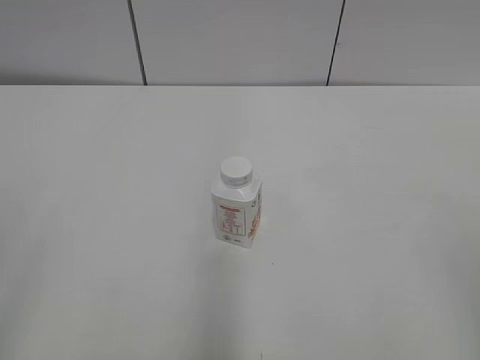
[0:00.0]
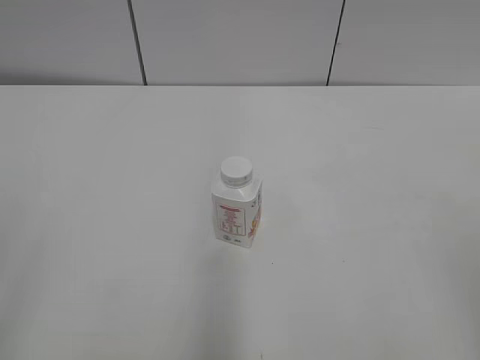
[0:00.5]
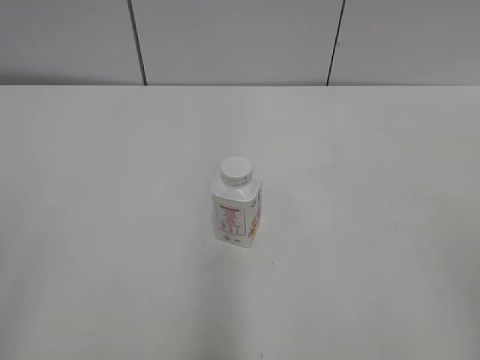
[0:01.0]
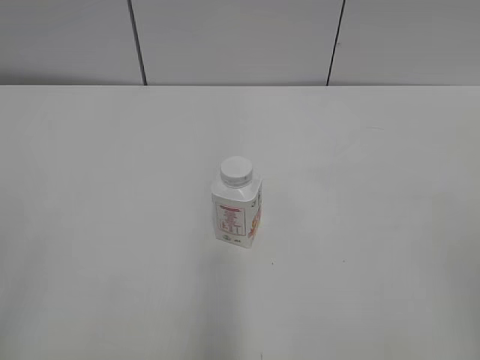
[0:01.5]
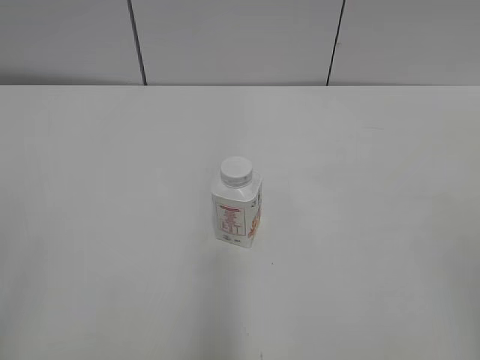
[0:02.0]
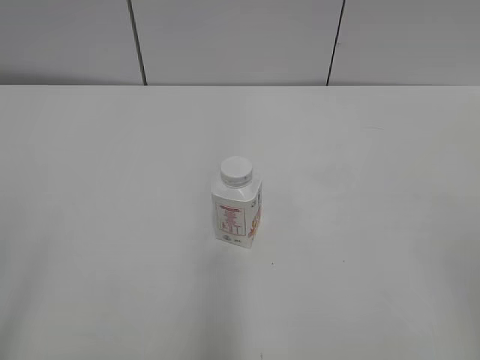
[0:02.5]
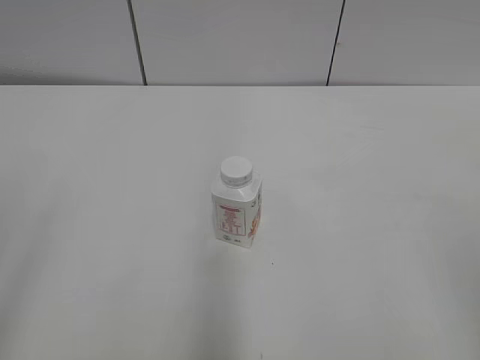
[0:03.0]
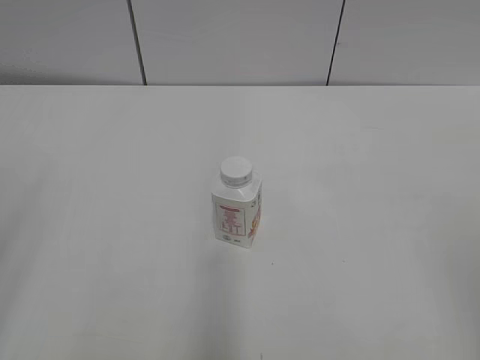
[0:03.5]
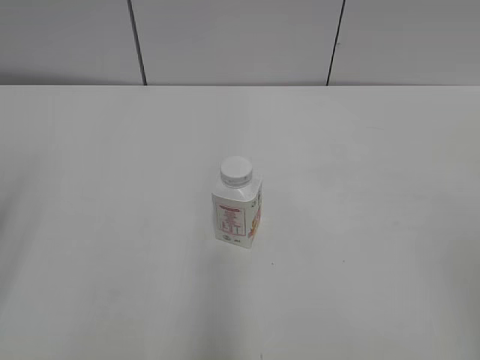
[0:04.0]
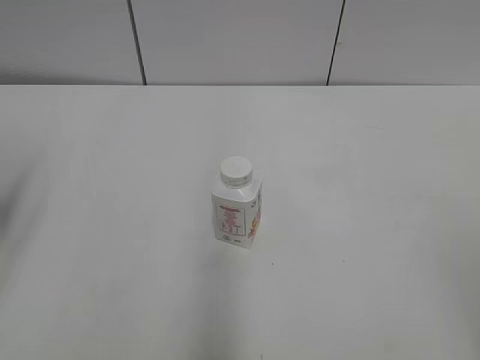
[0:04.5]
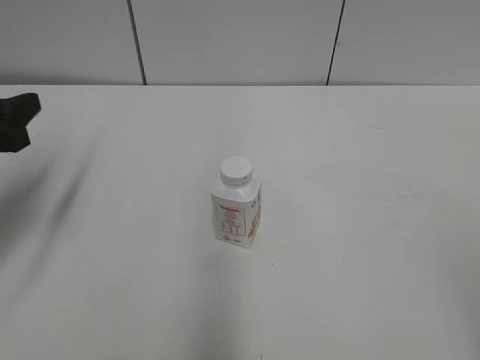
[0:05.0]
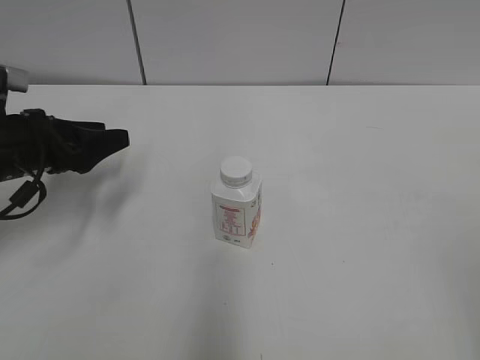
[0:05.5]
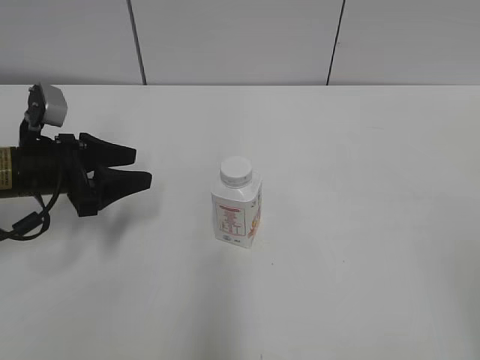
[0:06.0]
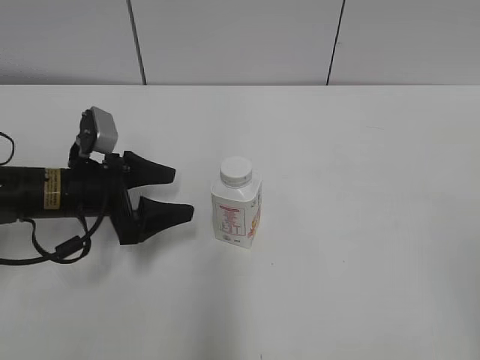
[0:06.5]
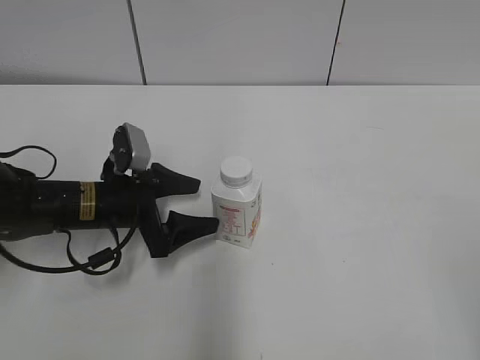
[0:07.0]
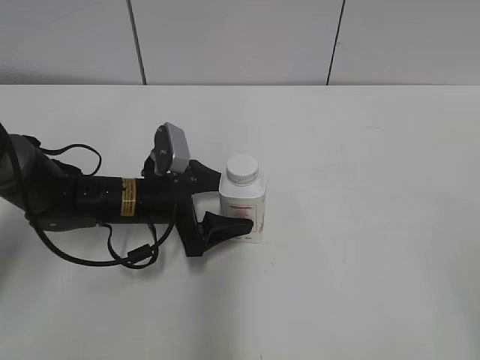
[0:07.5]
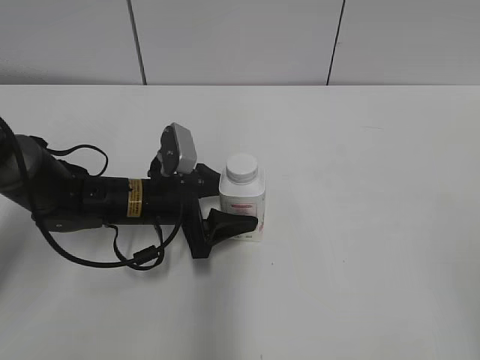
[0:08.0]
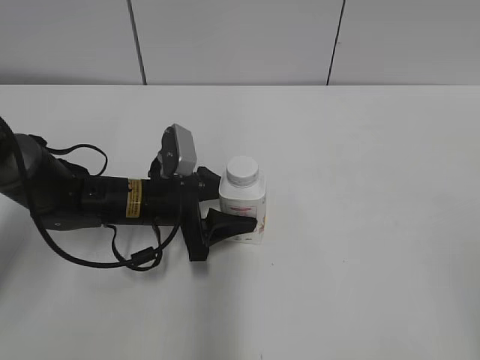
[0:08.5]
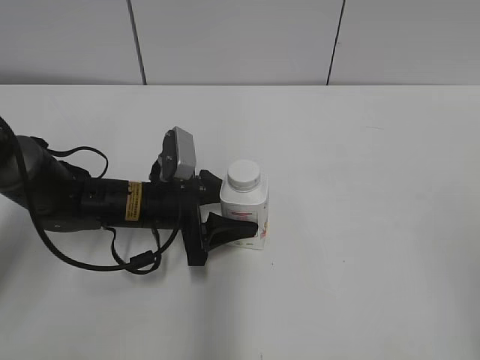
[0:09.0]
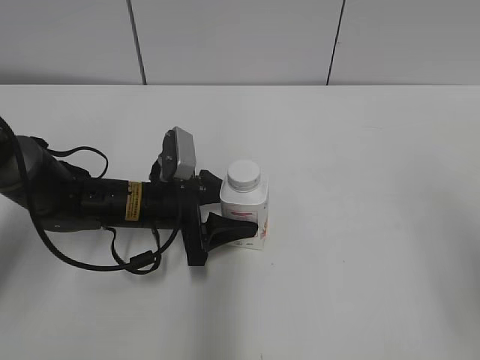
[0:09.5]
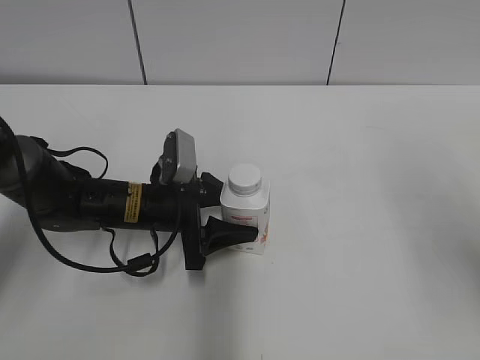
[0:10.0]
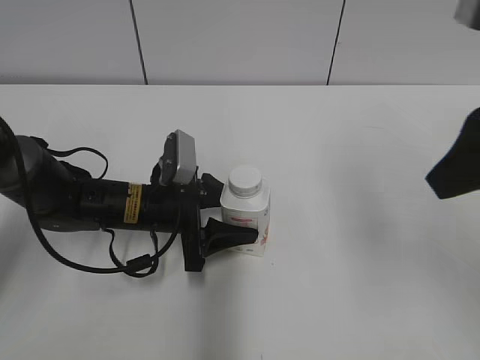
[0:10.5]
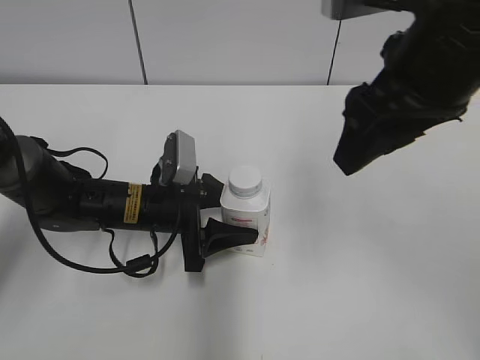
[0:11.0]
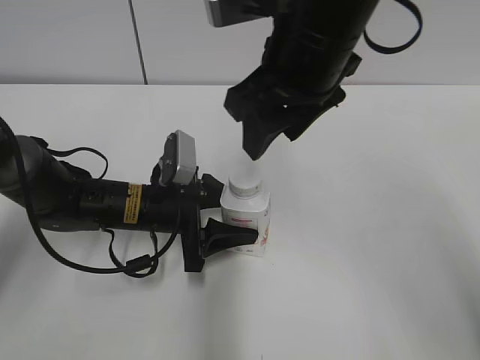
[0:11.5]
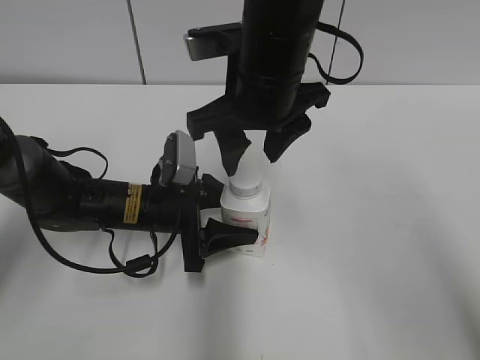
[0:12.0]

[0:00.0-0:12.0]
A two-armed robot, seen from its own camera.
Step, 0:00.0 to 0:08.5: Grasp the bottle and move it to the center of the table with the left gripper.
0:04.0 to 0:06.0: The left gripper is displaced forward and downward by about 25 cm.
0:06.0 to 0:08.0: The left gripper heads to the right and downward, covering approximately 15 cm.
0:08.0 to 0:10.0: The right gripper shifts approximately 15 cm forward.
0:10.0 to 0:12.0: The right gripper is displaced to the left and forward by about 30 cm.

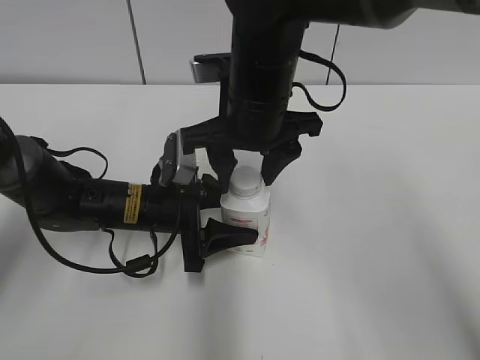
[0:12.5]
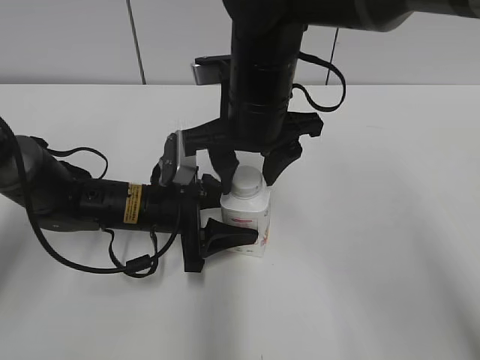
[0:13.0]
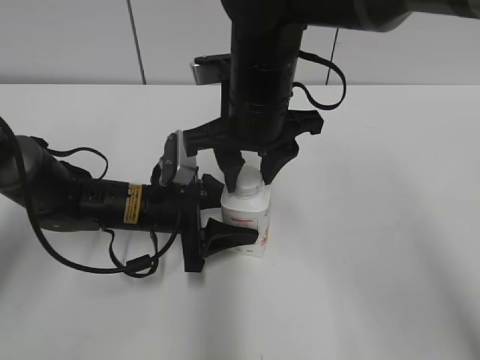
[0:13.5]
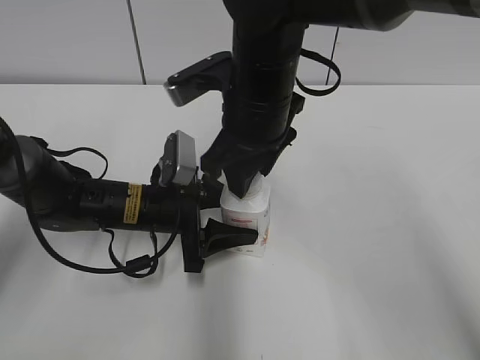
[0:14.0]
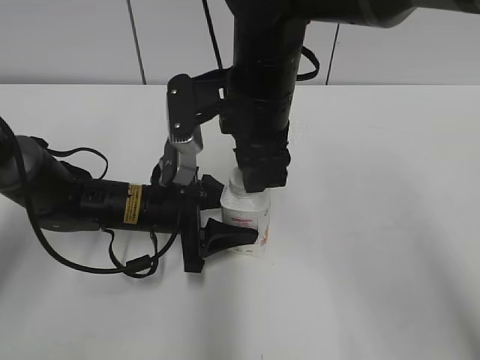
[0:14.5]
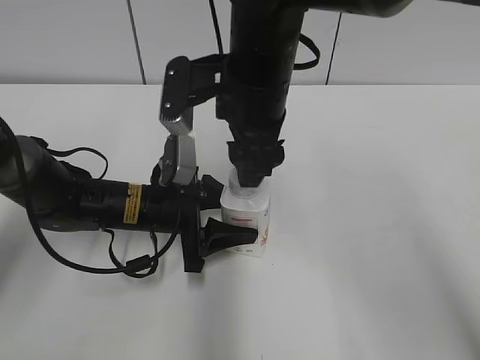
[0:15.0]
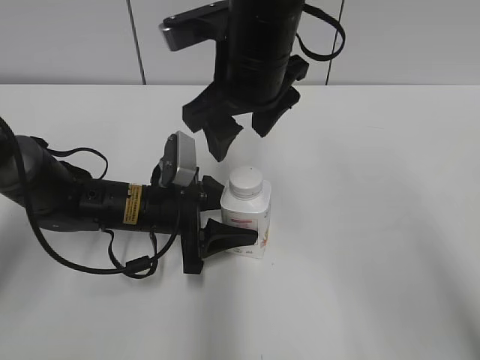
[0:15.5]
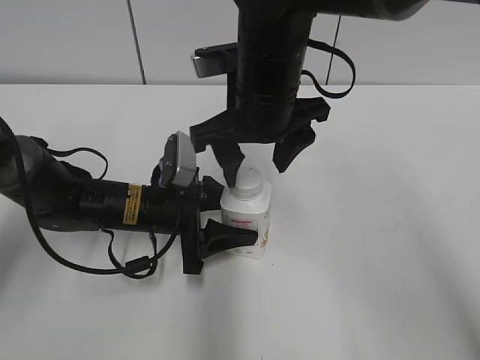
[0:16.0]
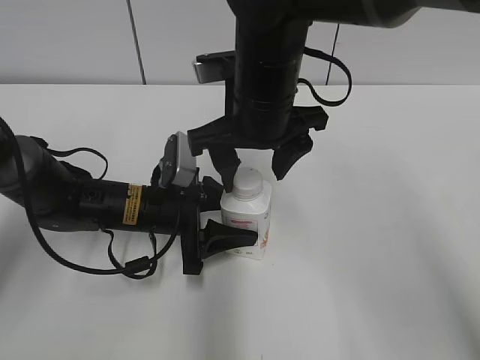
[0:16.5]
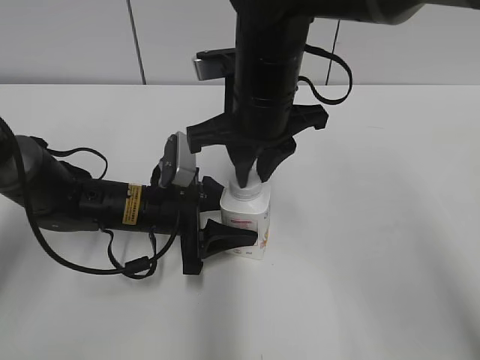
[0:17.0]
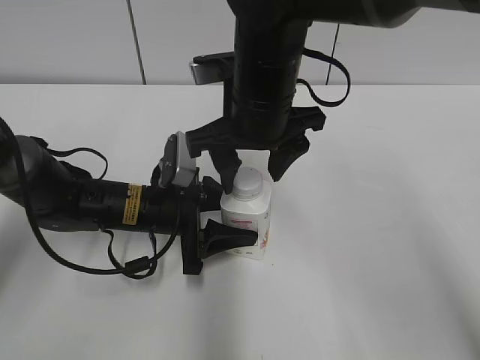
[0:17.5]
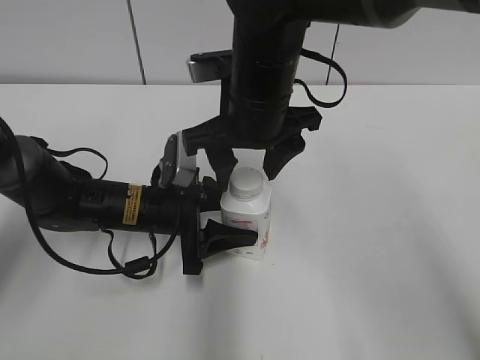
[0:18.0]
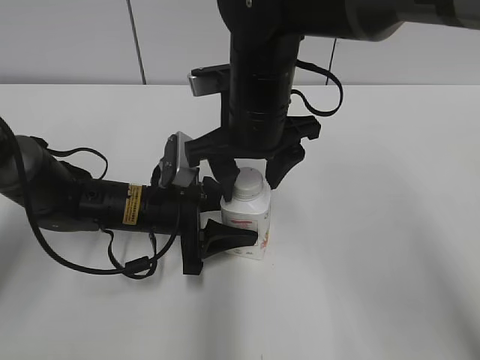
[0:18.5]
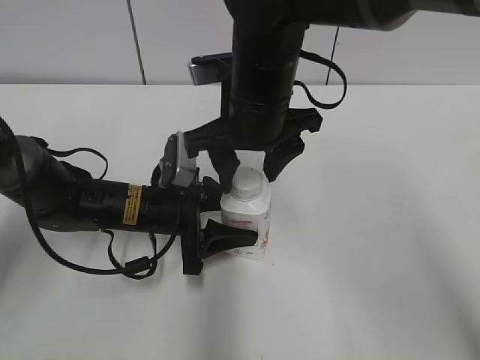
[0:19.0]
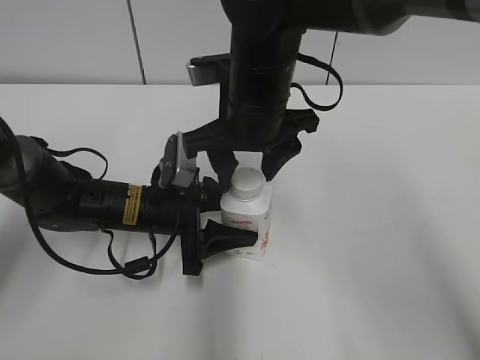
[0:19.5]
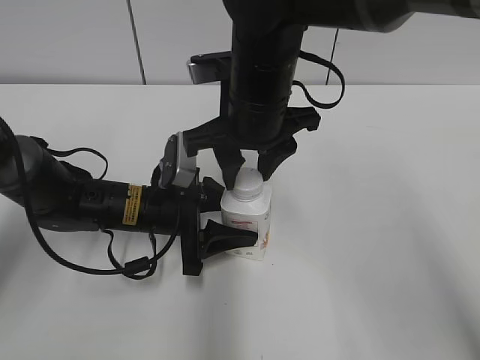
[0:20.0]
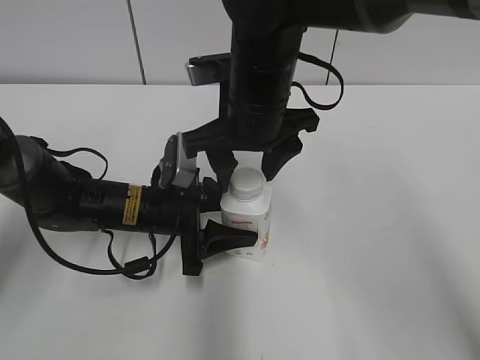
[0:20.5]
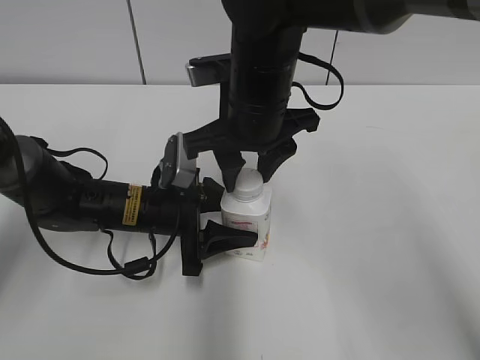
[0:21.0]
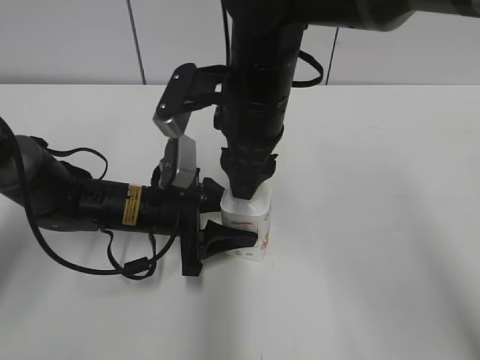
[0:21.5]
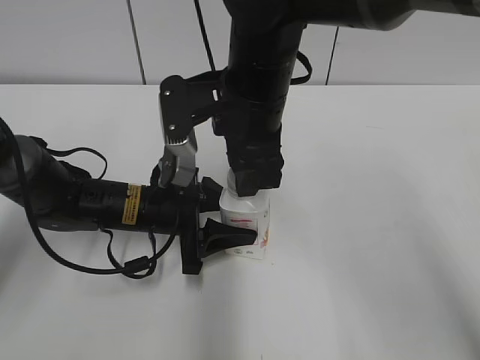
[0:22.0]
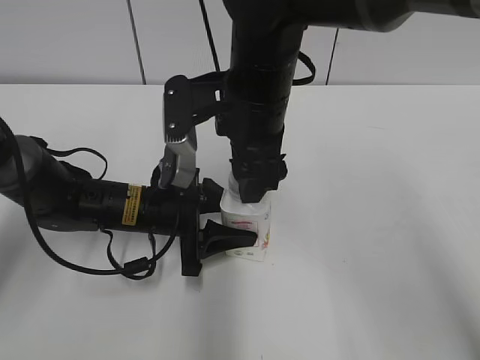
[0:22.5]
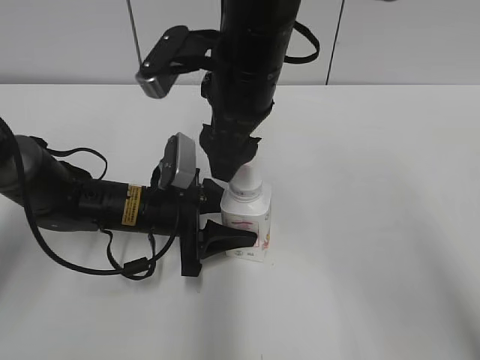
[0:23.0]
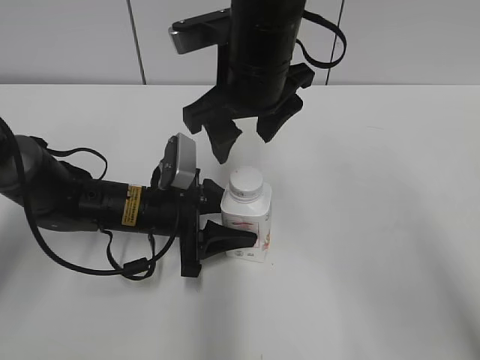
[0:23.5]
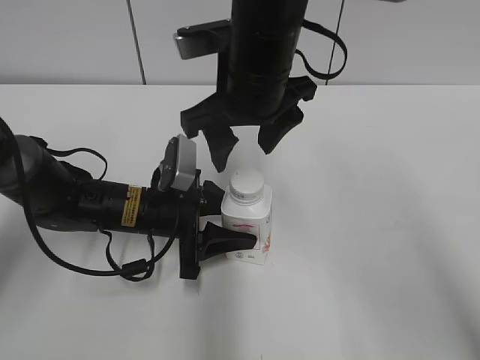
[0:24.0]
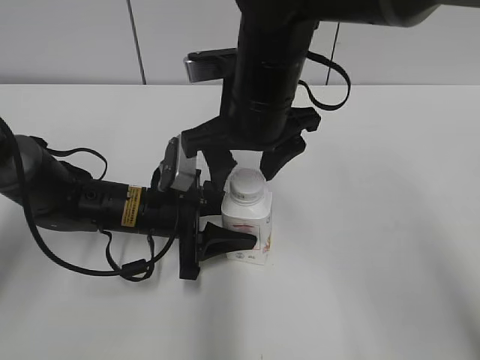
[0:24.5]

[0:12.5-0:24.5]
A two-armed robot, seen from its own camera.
0:12.5 to 0:14.5: The right gripper closes its fingers.
0:14.5 to 0:16.5: The right gripper opens.
0:16.5 to 0:18.5: The right gripper closes and opens again.
0:18.5 to 0:20.5: The right gripper closes, then reopens.
0:20.5 to 0:22.5: The right gripper closes, then reopens.

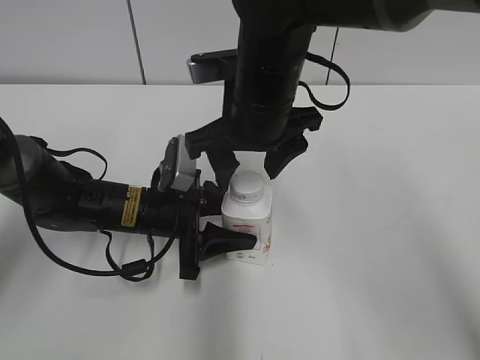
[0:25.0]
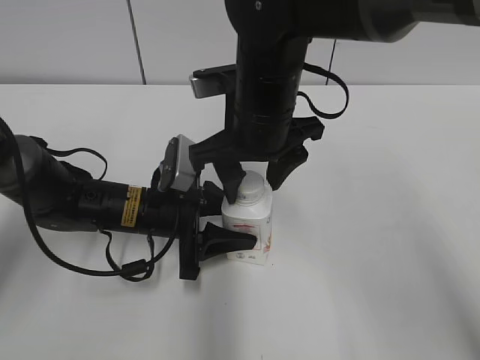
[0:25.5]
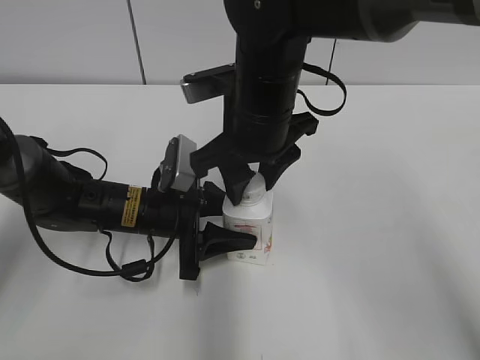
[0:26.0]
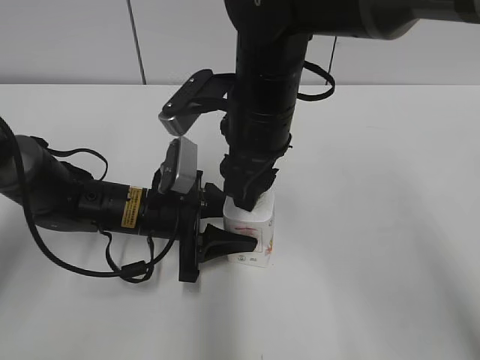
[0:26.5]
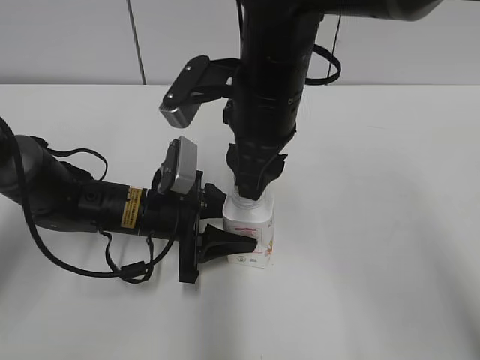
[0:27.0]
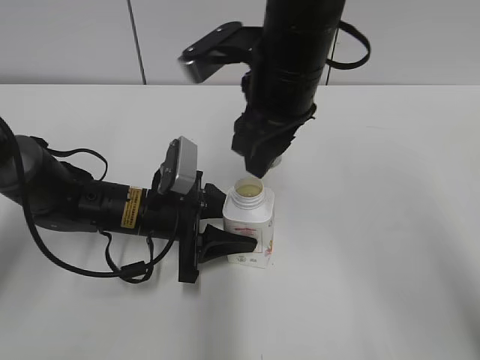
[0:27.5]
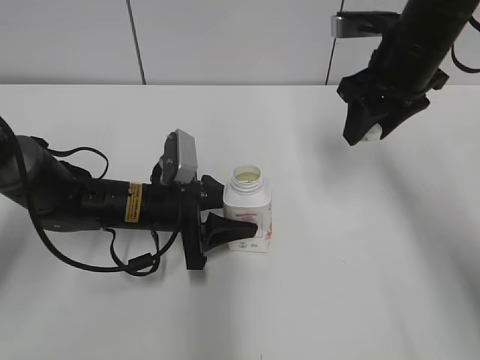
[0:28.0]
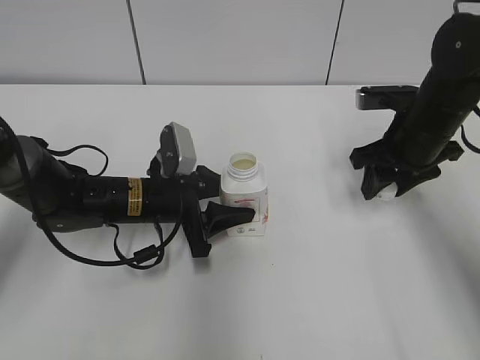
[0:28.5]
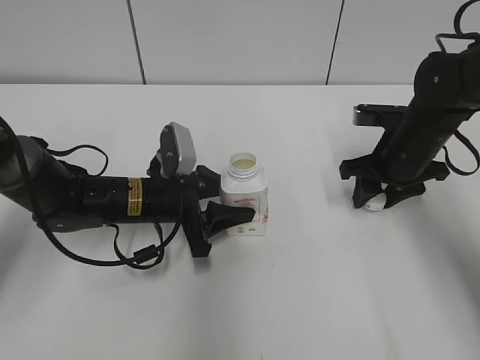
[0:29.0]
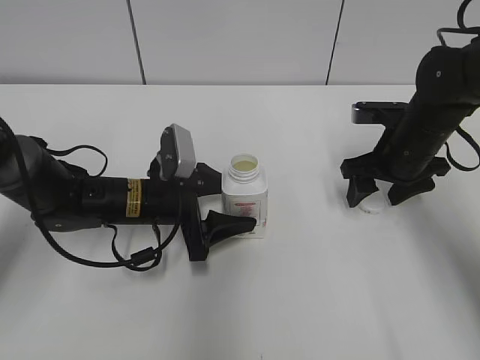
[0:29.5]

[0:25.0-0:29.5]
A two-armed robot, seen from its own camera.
Step, 0:25.0 to 0:27.0: Unscrew the bottle cap with the right gripper while holding the bottle with the left gripper.
Step, 0:27.5 to 0:29.0: Place the bottle cap on the table with the right gripper.
0:25.0 to 0:27.0: The right gripper closes.
0:27.0 to 0:29.5: The right gripper is displaced to the right and downward by about 20 cm, and opens.
